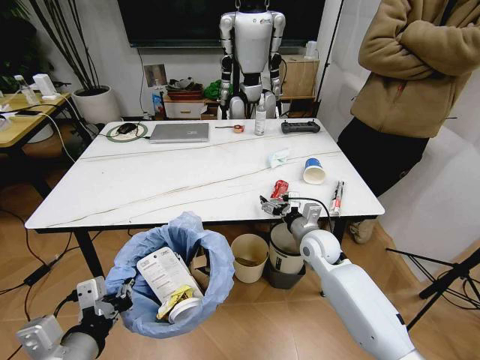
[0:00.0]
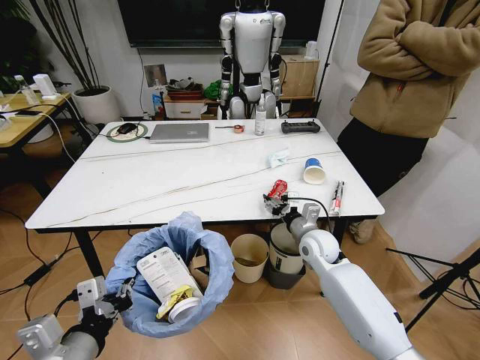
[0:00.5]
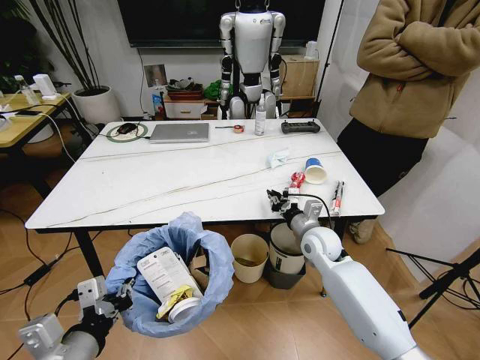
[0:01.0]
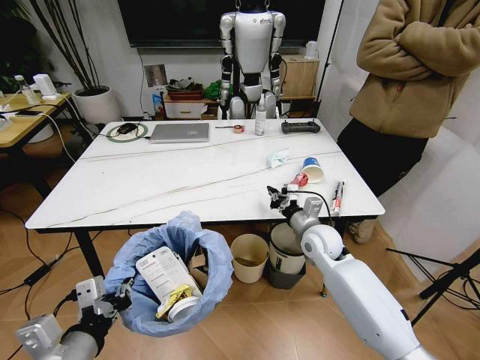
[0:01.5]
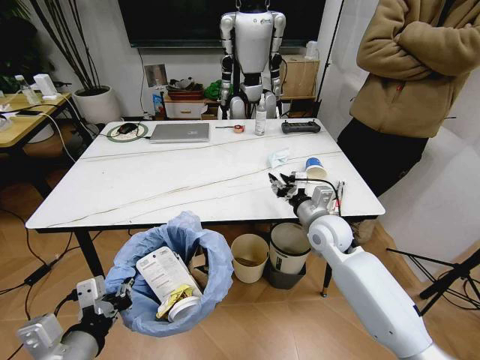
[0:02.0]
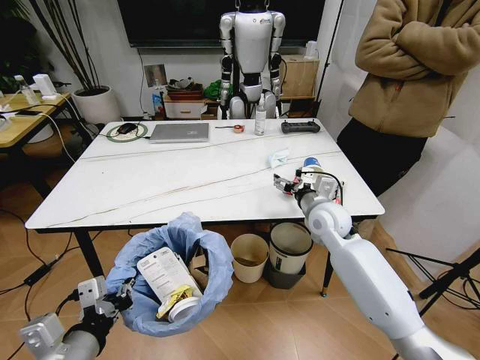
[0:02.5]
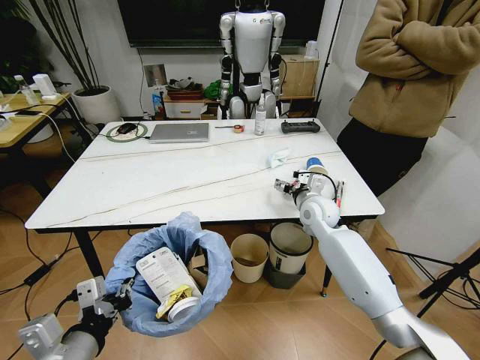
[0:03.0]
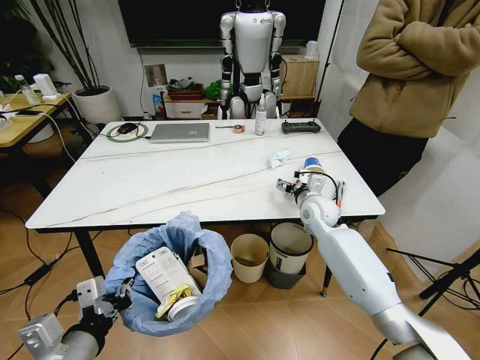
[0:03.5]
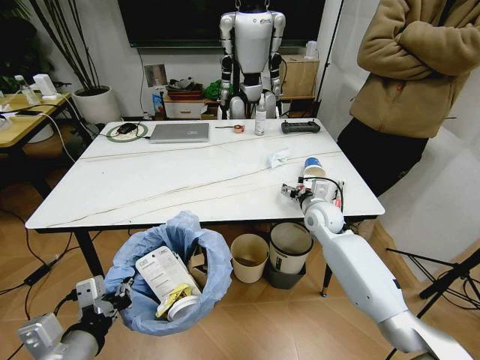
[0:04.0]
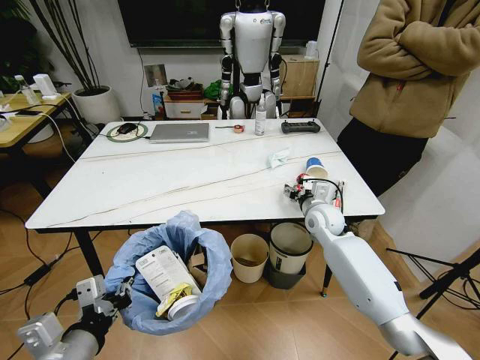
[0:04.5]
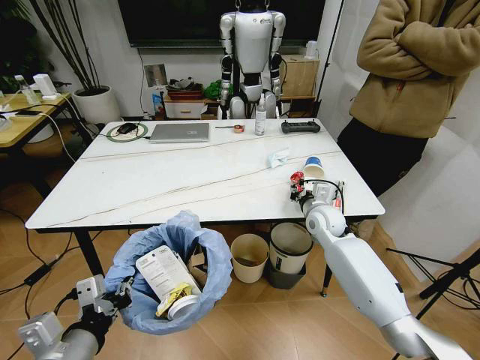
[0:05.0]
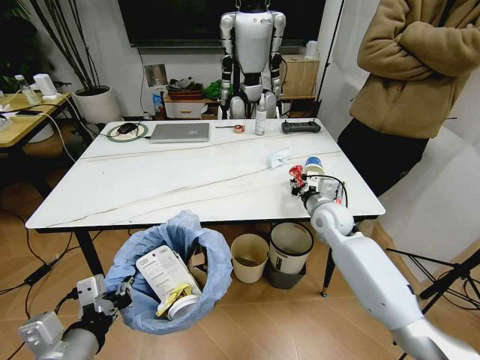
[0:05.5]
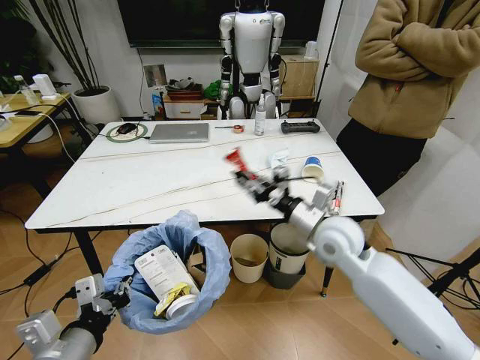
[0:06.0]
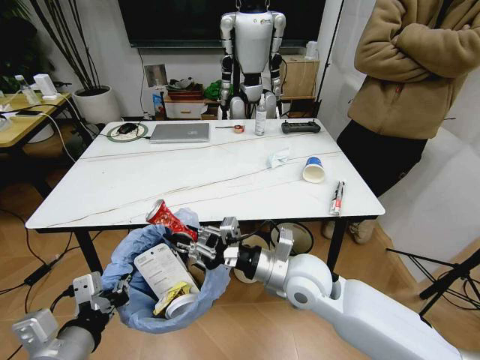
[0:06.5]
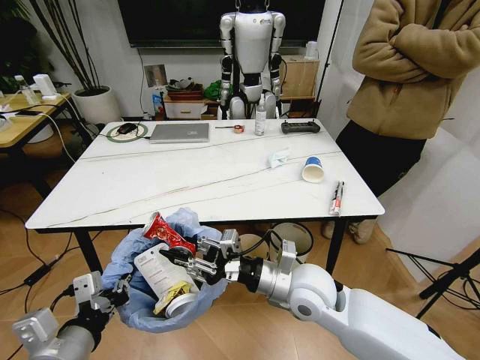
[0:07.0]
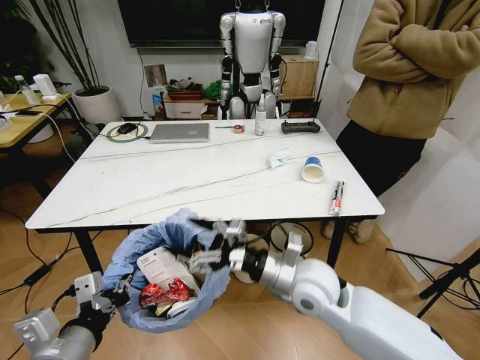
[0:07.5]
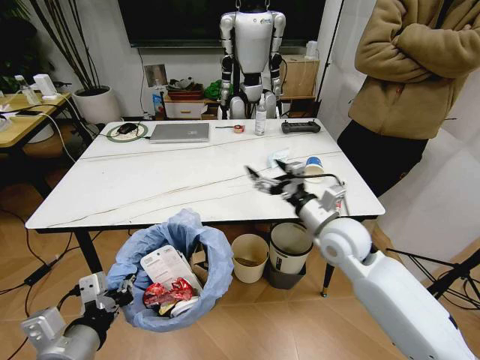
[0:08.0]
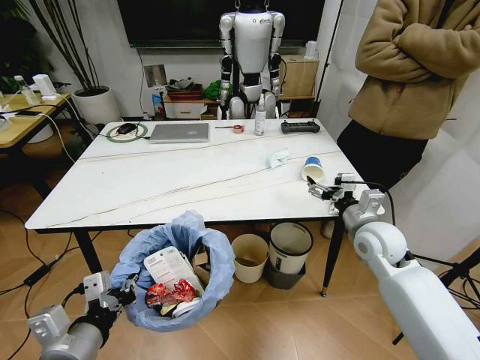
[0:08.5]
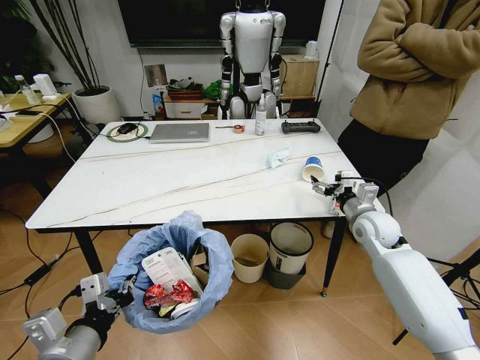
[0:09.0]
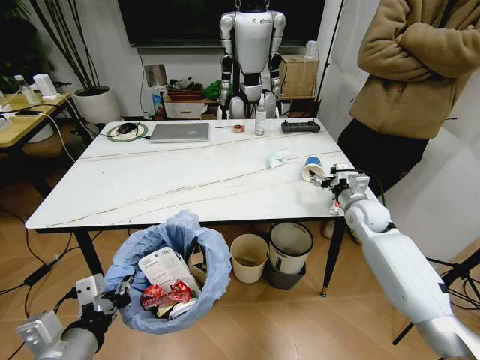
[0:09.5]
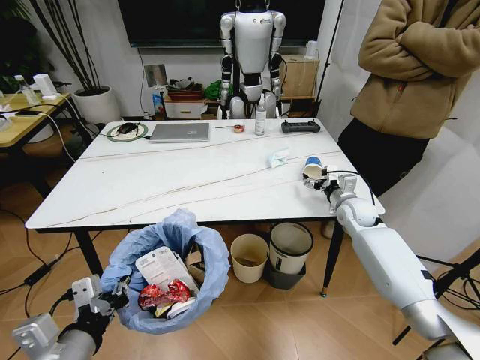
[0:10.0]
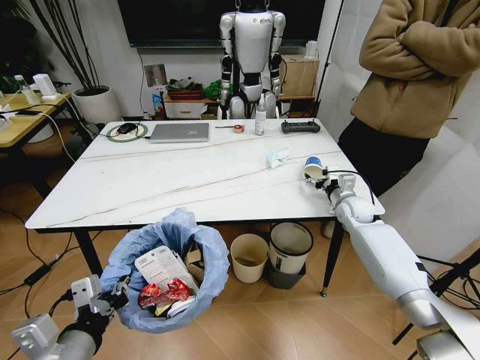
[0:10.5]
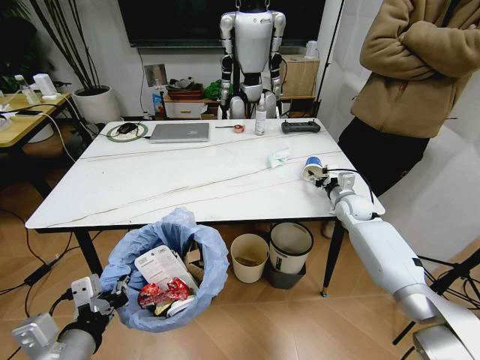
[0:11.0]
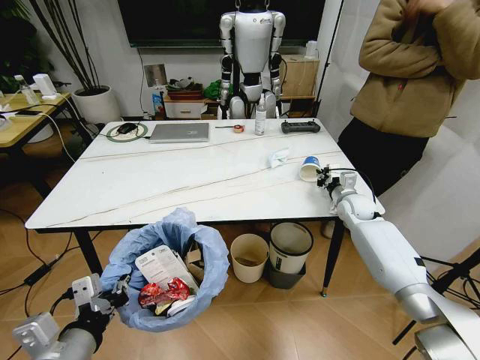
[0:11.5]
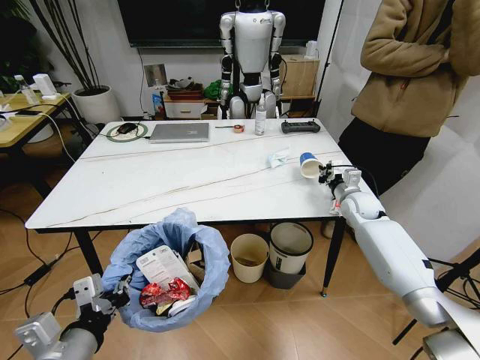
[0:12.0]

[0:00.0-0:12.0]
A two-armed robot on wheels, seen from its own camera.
Task of the whole recording: Pick up the trash bin and place the trash from the table into it.
0:00.0 to 0:02.0: The right gripper heads upward, covering approximately 5 cm, and closes.
0:02.0 to 0:04.0: The right gripper moves forward, about 5 cm, and opens up.
0:04.0 to 0:06.0: The right gripper shifts about 15 cm backward and upward, and closes up.
0:06.0 to 0:08.0: The right gripper moves roughly 5 cm to the left and comes back, and opens up.
0:08.0 to 0:10.0: The right gripper travels forward, to the right and downward by approximately 20 cm.
0:10.0 to 0:12.0: The right gripper closes up.

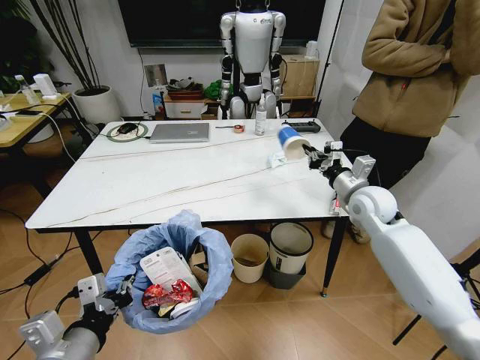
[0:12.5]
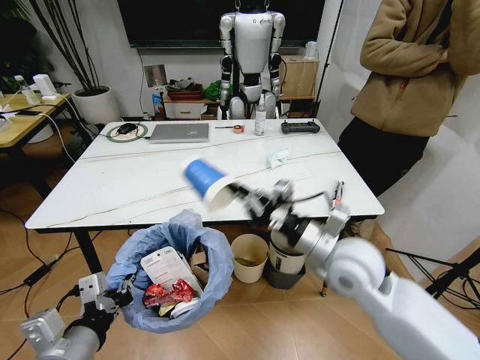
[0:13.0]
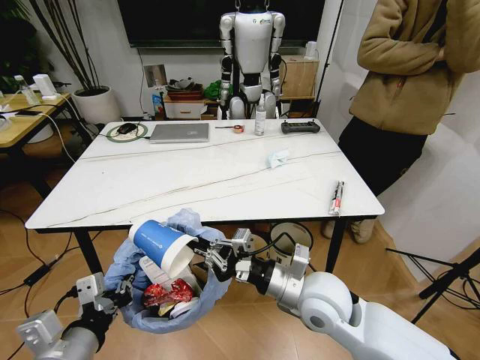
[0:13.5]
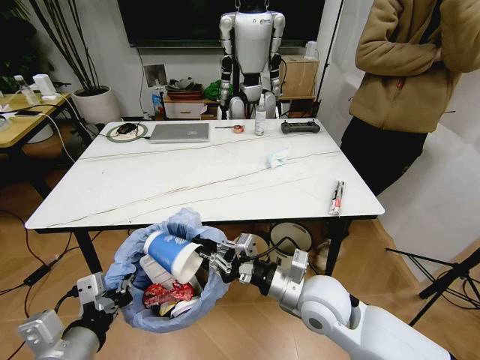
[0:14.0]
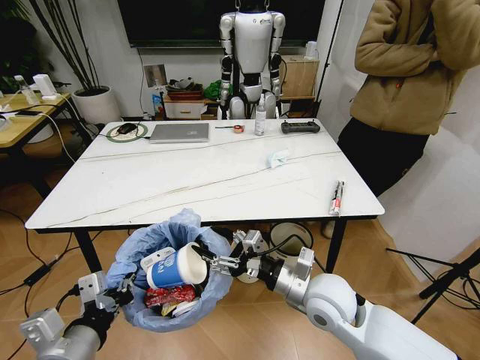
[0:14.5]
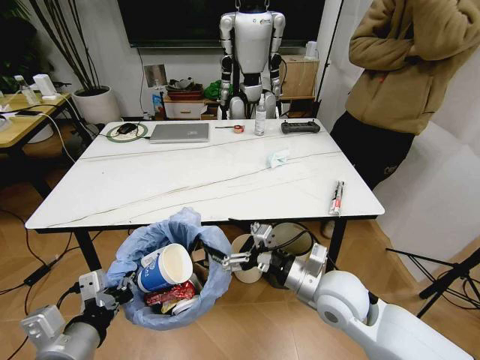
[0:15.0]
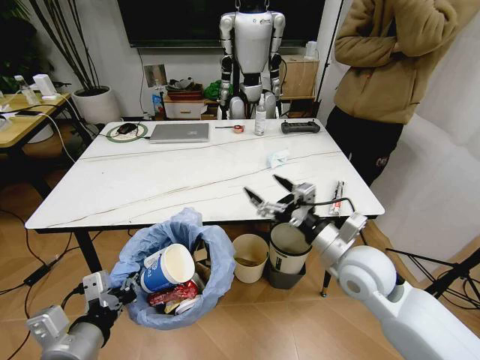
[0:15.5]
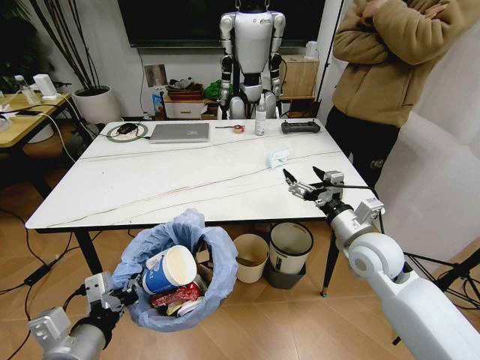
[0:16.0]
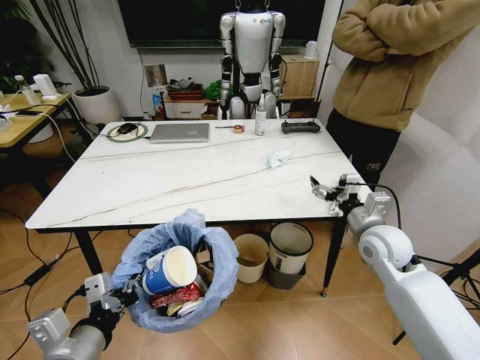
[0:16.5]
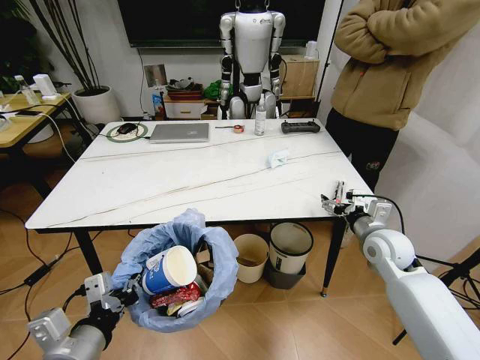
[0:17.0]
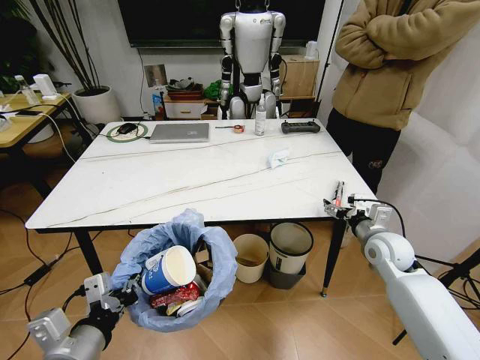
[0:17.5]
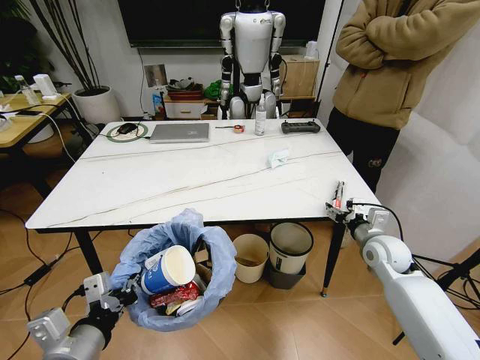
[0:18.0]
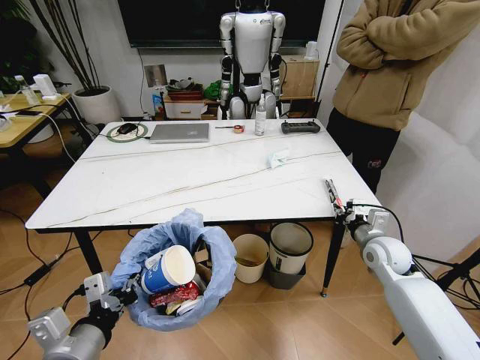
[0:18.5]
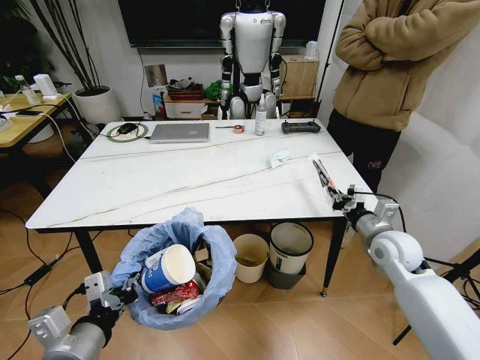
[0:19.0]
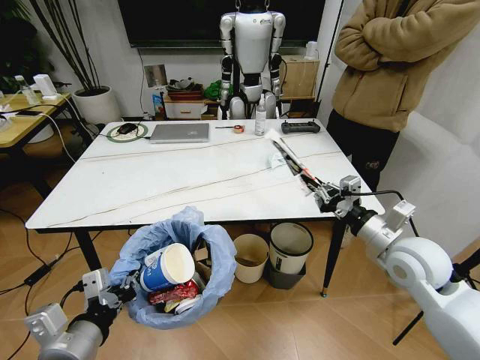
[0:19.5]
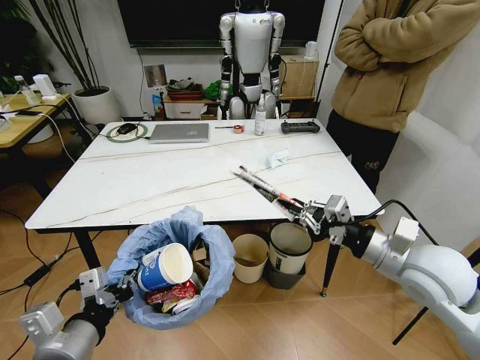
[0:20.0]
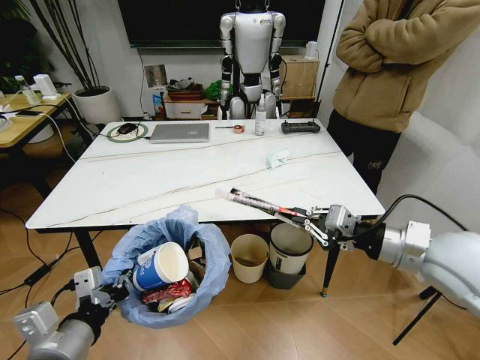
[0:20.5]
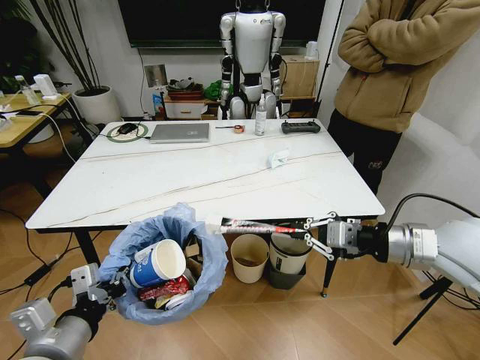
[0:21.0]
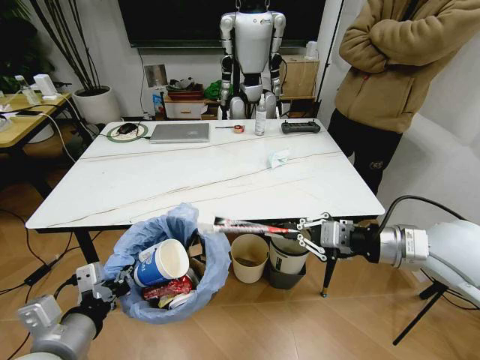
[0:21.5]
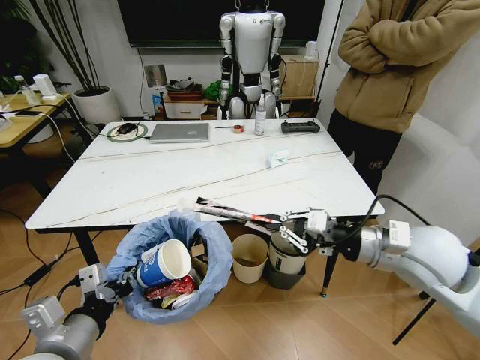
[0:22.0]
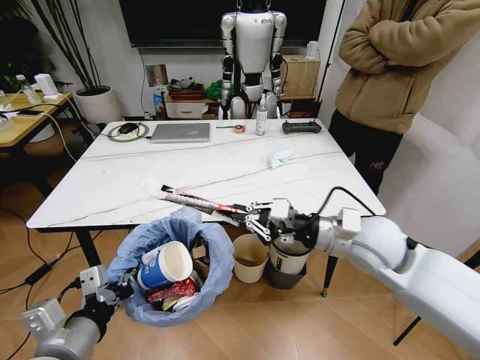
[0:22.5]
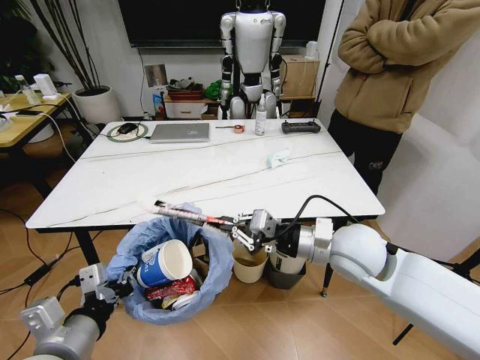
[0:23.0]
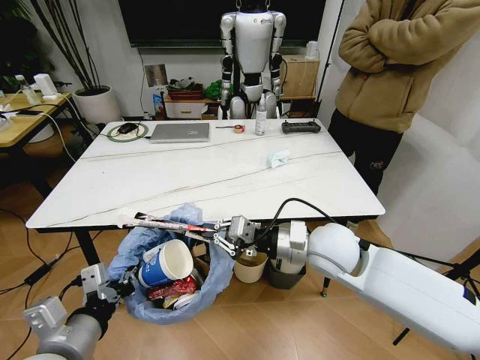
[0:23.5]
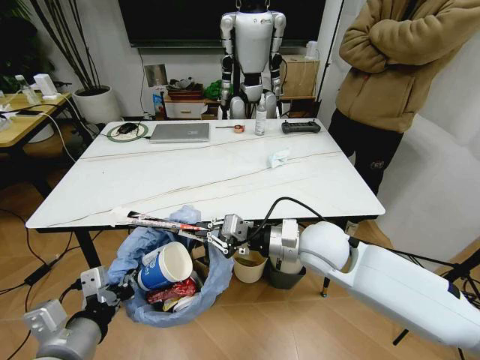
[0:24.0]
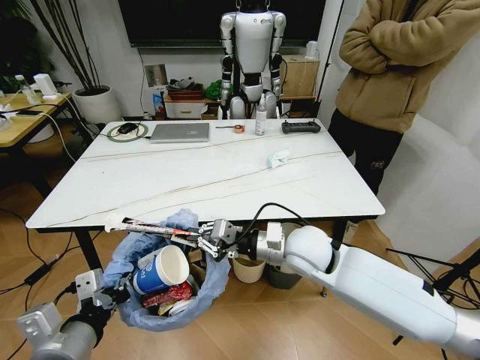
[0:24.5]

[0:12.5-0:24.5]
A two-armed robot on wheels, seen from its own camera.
Task of the whole recording: Pick up the trash bin and place the trash from the table into it.
0:12.5 to 0:14.5: The right gripper is displaced backward and to the left by about 25 cm, and opens up.
0:14.5 to 0:16.5: The right gripper shifts approximately 20 cm to the right and forward.
0:16.5 to 0:18.5: The right gripper moves downward, roughly 5 cm, and closes its fingers.
0:18.5 to 0:20.5: The right gripper heads upward and backward, covering some 20 cm.
0:20.5 to 0:22.5: The right gripper moves to the left and forward, roughly 10 cm.
0:22.5 to 0:24.5: The right gripper goes roughly 10 cm to the left and downward.

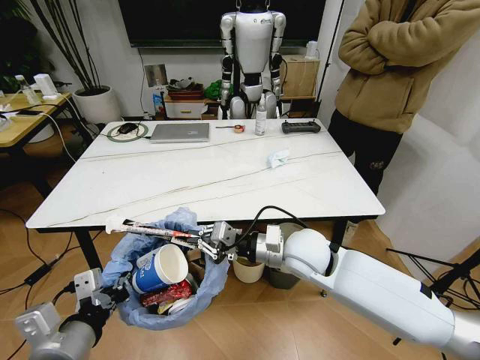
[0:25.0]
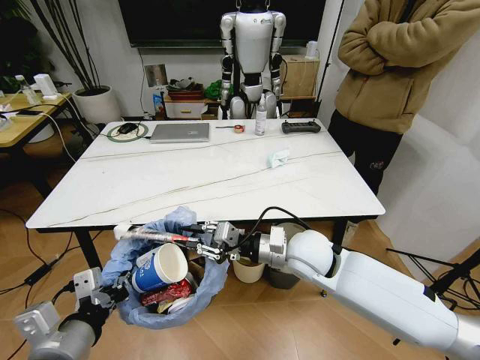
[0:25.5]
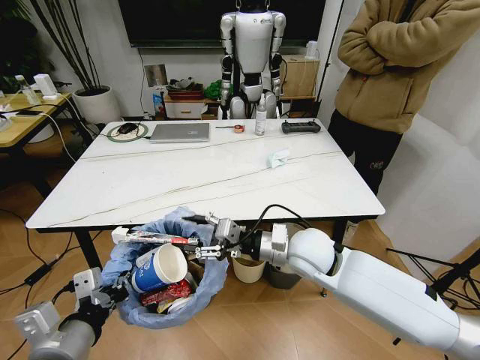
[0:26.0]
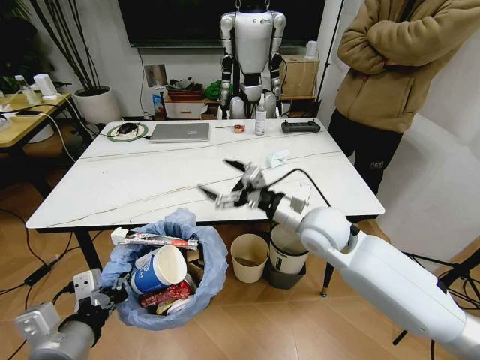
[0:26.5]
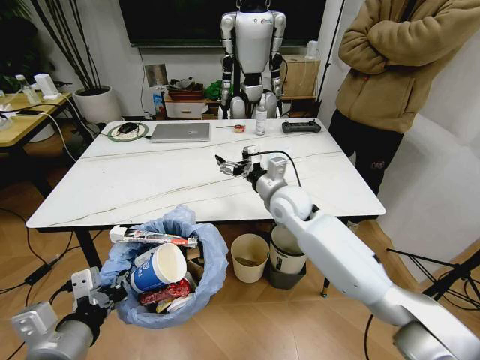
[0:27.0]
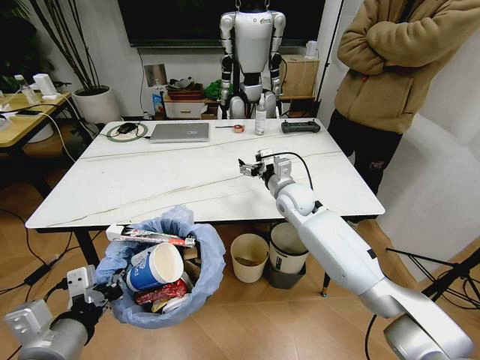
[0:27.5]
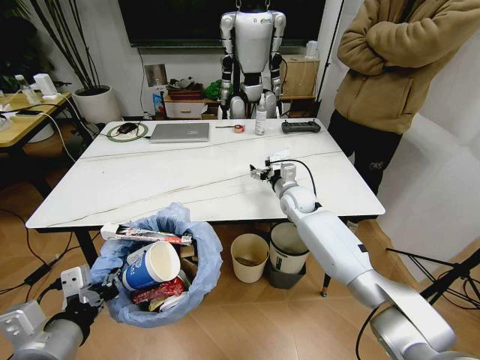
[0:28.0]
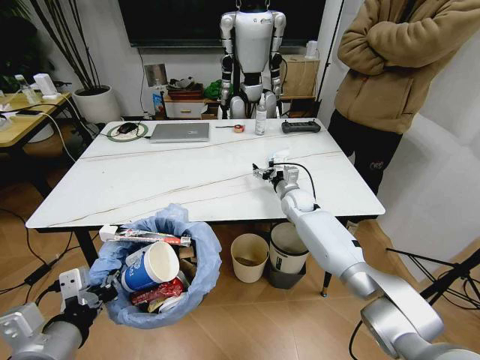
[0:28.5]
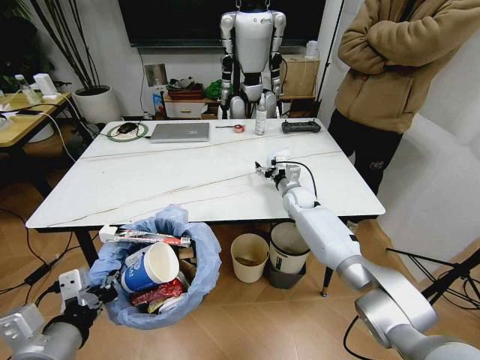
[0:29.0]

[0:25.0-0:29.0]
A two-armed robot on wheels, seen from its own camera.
Task of the whole recording: Pick up the trash bin and place the trash from the table into it.
0:25.0 to 0:27.0: The right gripper travels forward by about 10 cm, and opens.
0:27.0 to 0:29.0: The right gripper shifts some 20 cm forward, downward and to the right.
